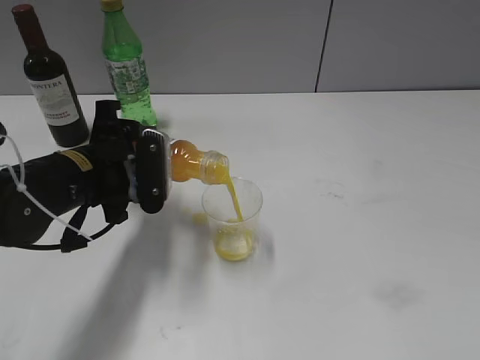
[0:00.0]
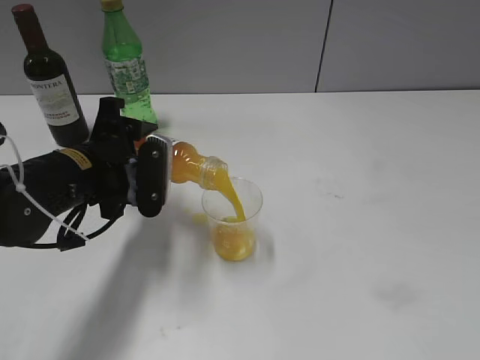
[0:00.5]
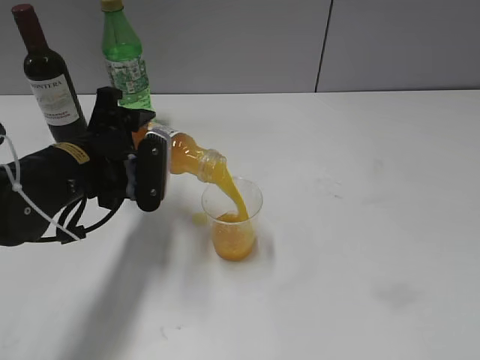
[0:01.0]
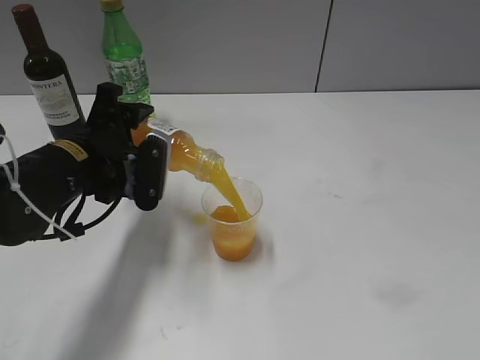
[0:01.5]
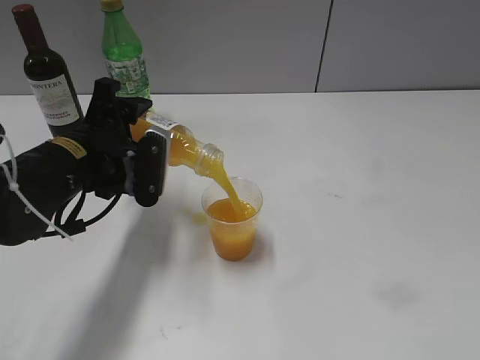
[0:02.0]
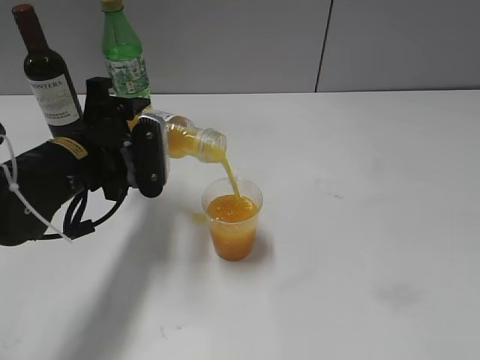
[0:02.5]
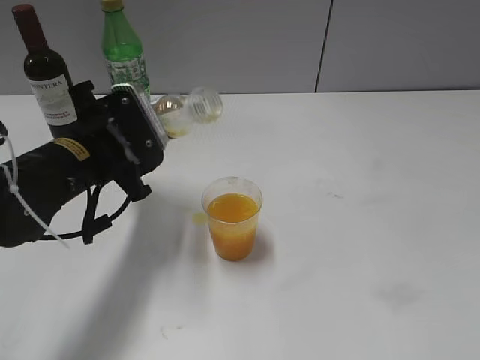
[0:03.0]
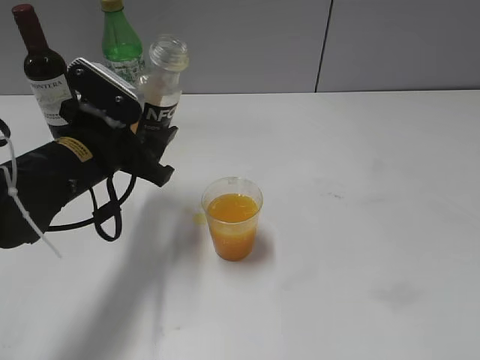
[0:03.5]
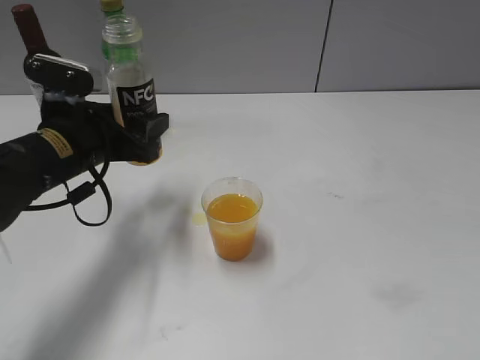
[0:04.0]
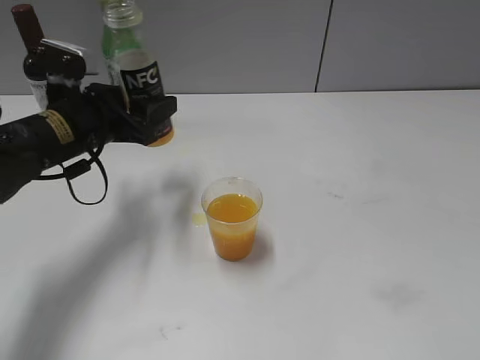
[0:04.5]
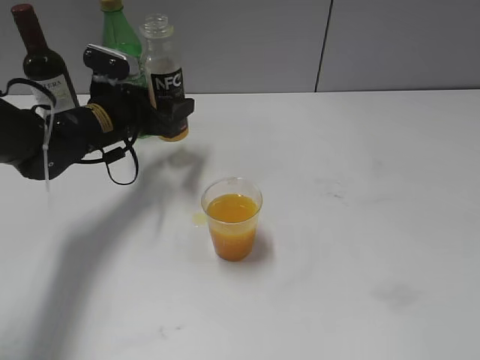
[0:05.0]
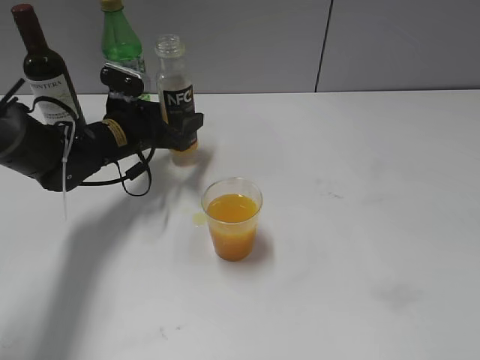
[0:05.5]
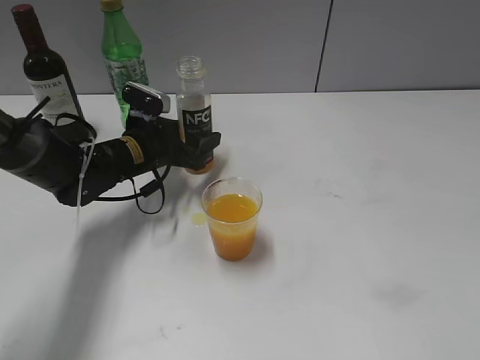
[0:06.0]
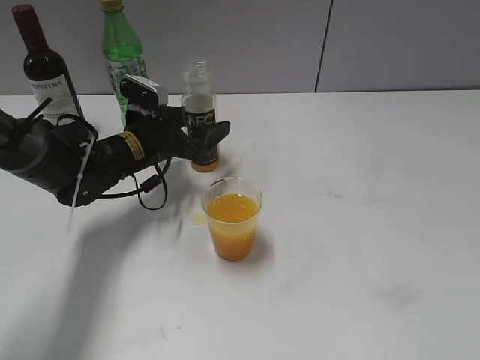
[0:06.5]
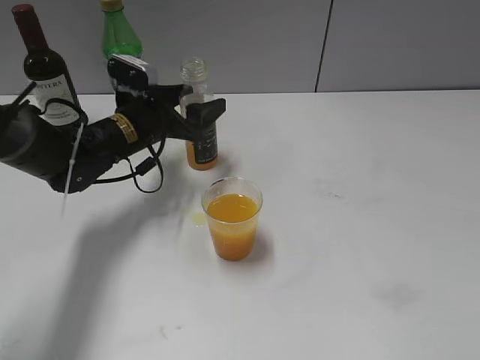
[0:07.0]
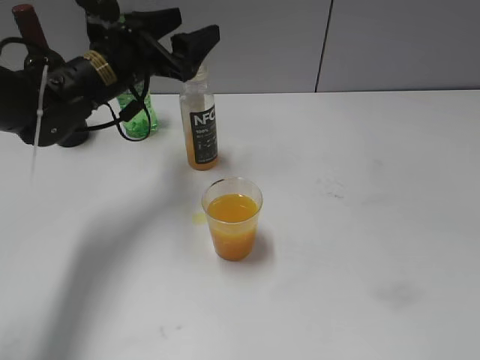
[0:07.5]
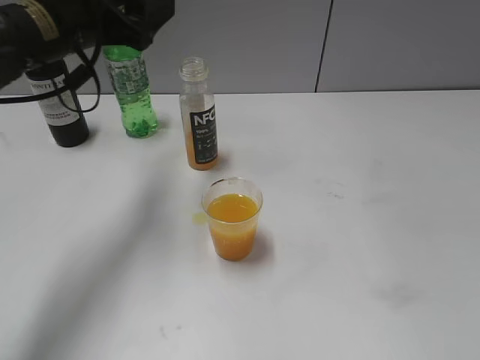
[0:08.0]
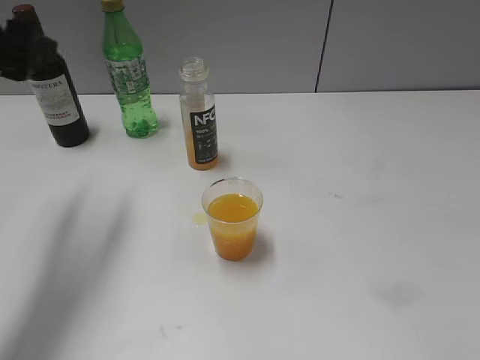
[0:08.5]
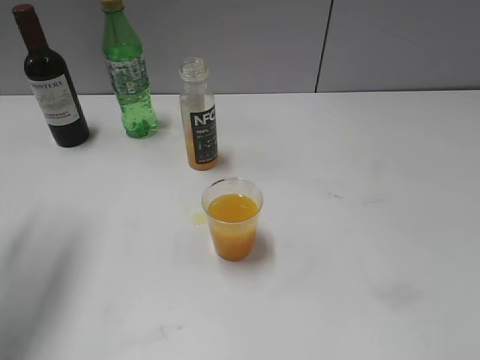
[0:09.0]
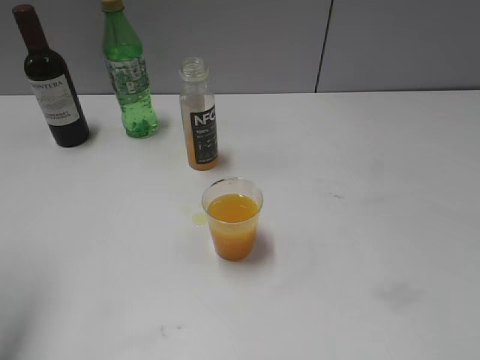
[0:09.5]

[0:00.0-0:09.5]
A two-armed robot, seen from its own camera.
Step, 0.0 to 3.0 s: Pour the orange juice from bottle to cup with left gripper.
Step, 3.5 to 7.0 s: Place the orange juice bottle on the table with left gripper.
0.0 to 2.0 s: The grippers move only a little.
4.0 to 5.5 s: The left gripper heads forward and downward, covering roughly 15 cm.
5.5 to 7.5 s: The left gripper is displaced upward by about 10 cm, and opens its fingers.
7.5 to 9.5 s: The left gripper shifts approximately 30 cm backward, to the left and upward.

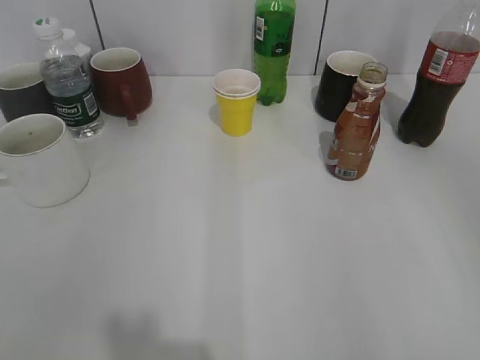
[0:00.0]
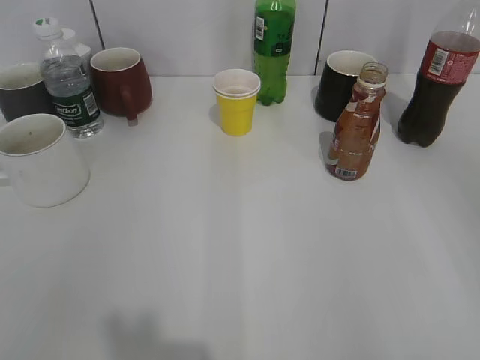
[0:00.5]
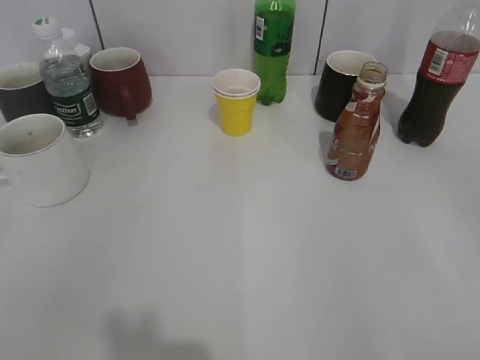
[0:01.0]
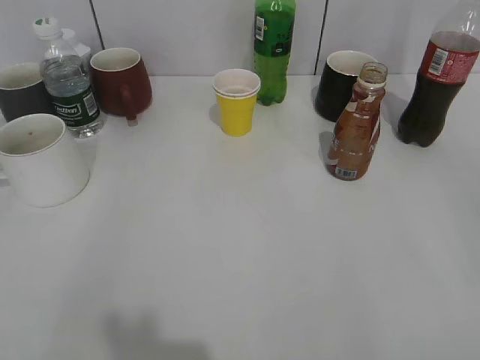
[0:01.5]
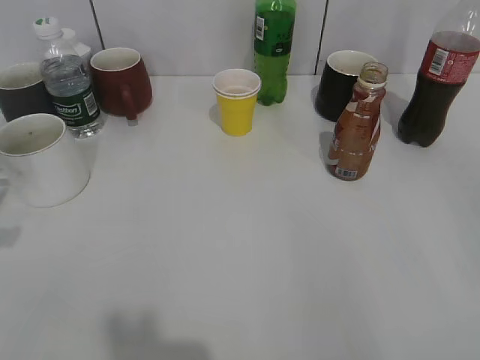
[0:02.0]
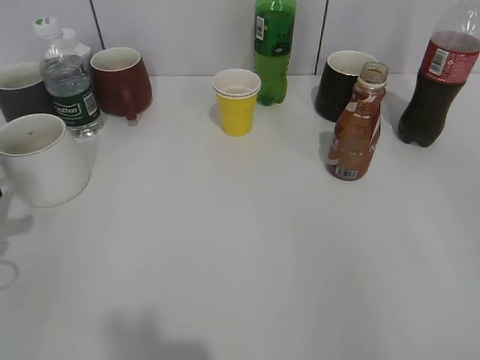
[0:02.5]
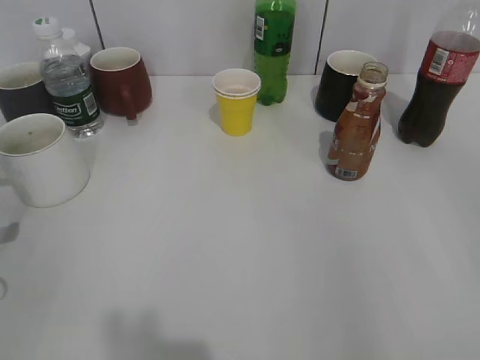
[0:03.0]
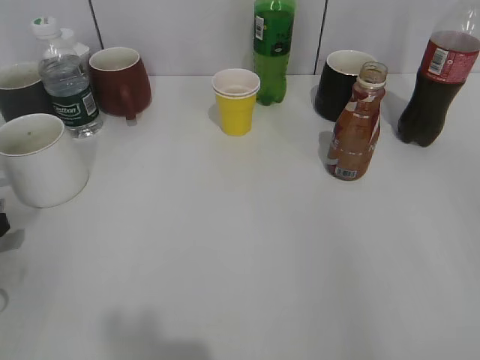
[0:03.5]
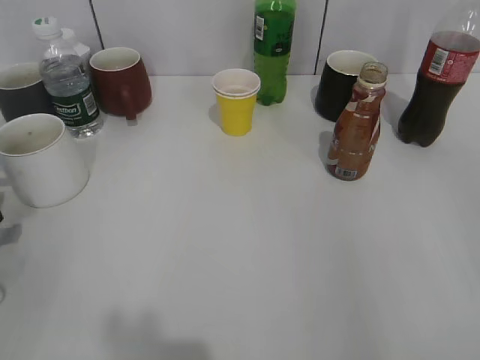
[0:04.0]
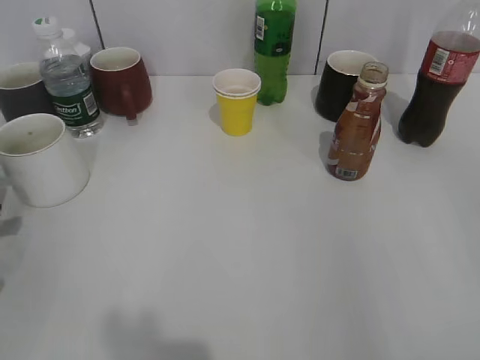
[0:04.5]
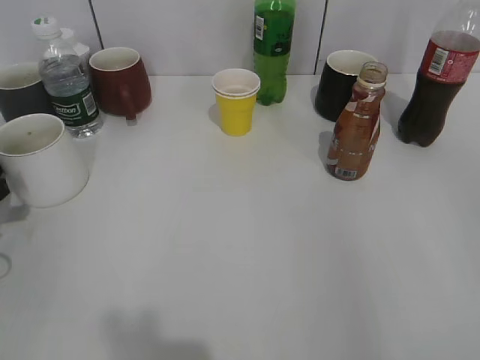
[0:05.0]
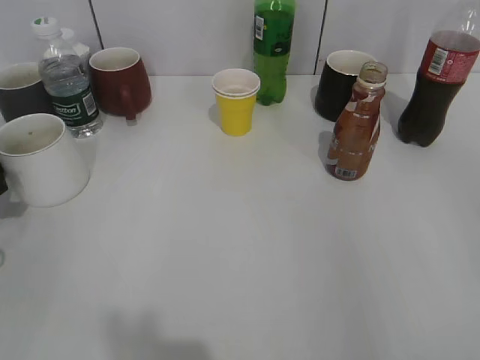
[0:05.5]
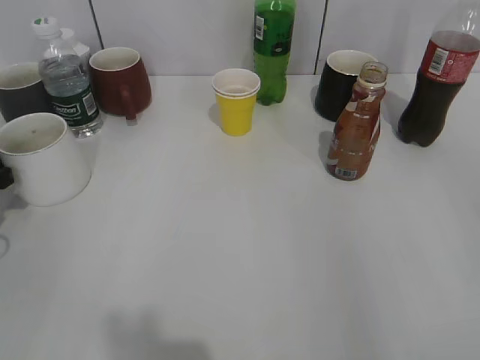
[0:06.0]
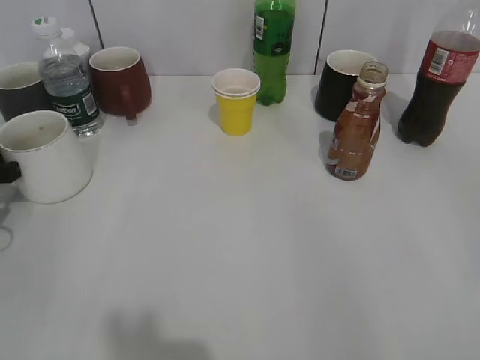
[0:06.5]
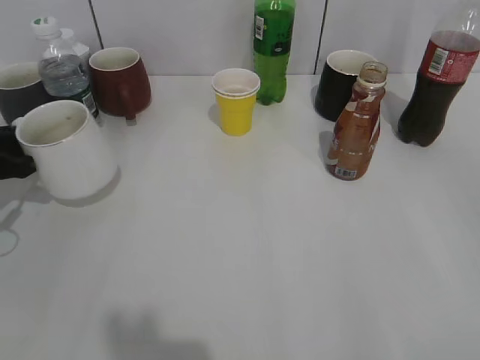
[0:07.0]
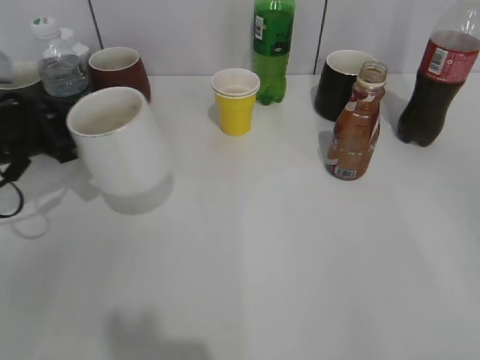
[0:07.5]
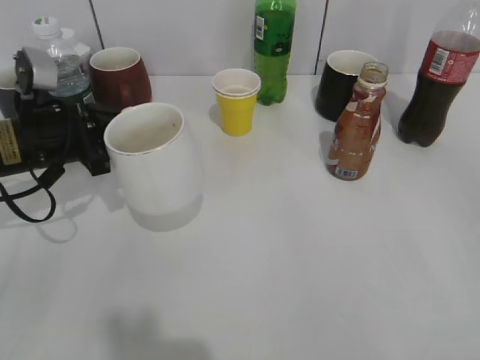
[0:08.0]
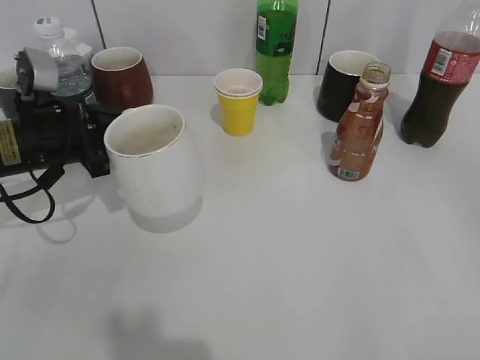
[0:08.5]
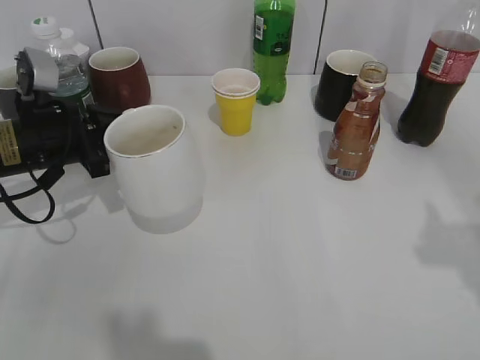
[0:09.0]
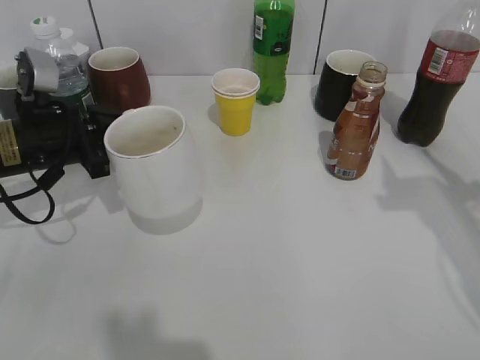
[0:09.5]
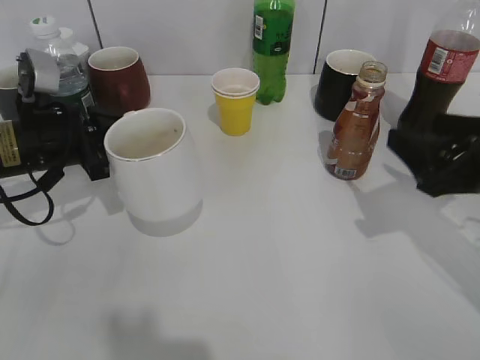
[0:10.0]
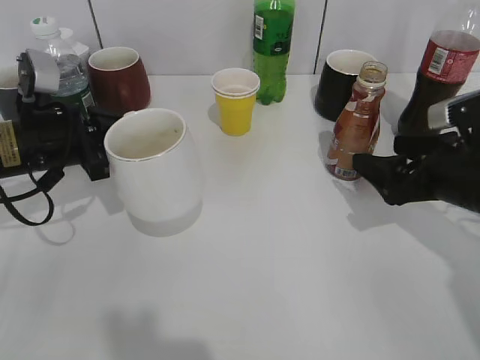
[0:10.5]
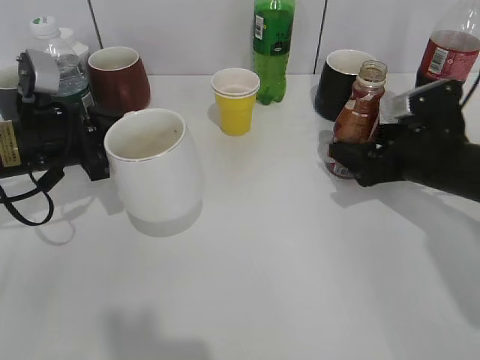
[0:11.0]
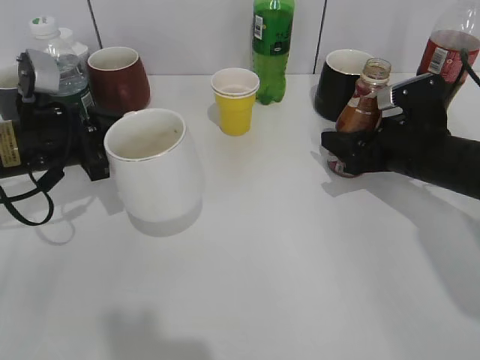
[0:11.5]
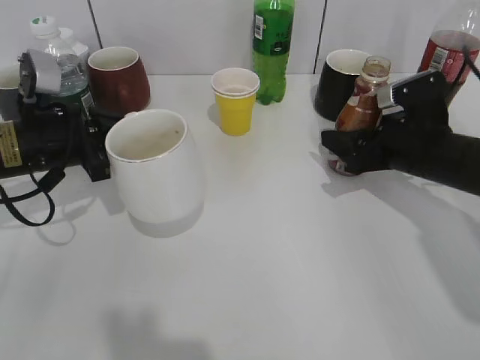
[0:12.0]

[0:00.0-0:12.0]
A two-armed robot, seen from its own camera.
Step, 7.0 to 8.5 s: Lift the white cup with left gripper.
Step, 9.0 to 11.5 s: Grasp the bottle with coffee with right gripper.
2.0 to 4.0 s: The left gripper travels downward by roughly 15 cm, and opens up.
4.0 to 6.0 s: The left gripper moves forward, about 5 cm.
6.0 to 8.0 s: The left gripper is displaced to the right by some 10 cm, and closes its fingers.
8.0 to 10.0 s: The right gripper goes approximately 25 cm forward.
10.0 to 12.0 s: The right gripper moves forward and downward, roughly 10 cm, and opens and closes again.

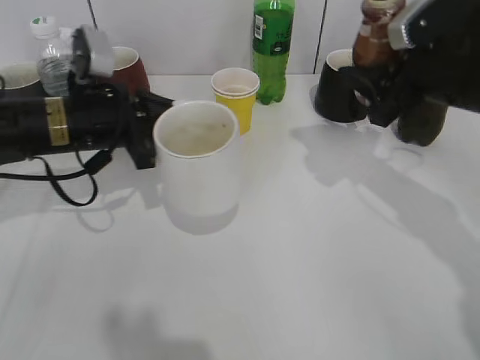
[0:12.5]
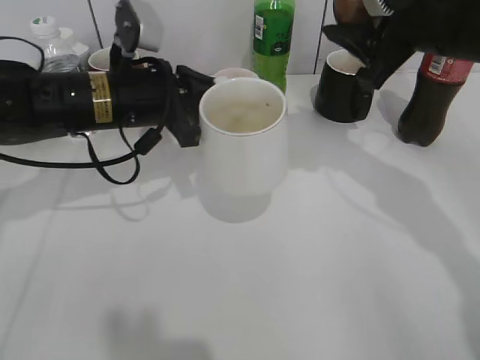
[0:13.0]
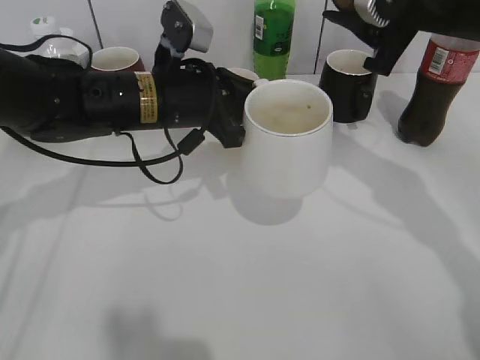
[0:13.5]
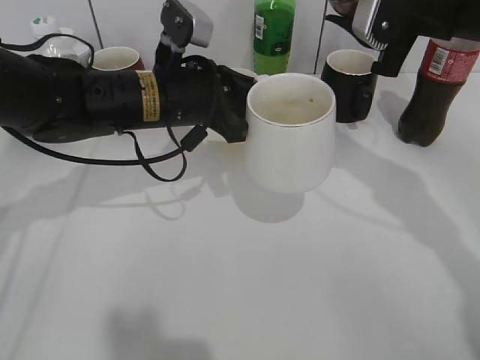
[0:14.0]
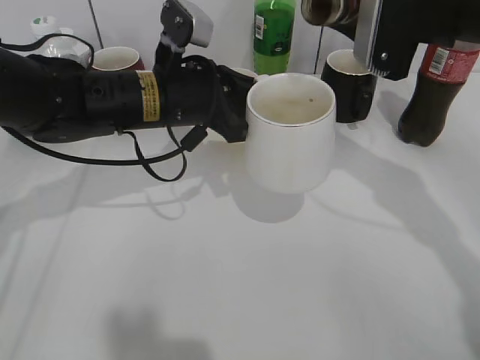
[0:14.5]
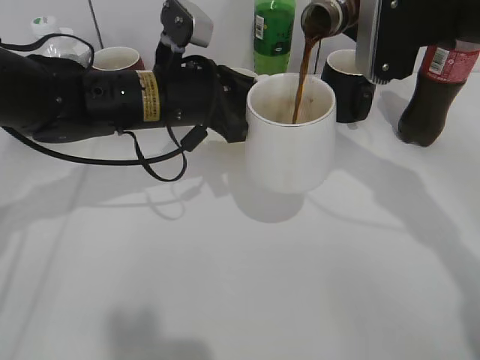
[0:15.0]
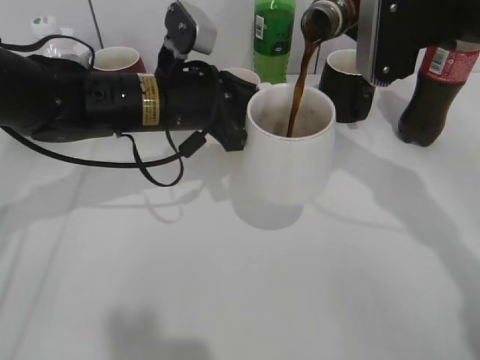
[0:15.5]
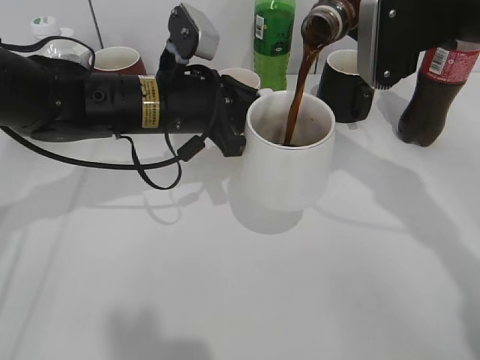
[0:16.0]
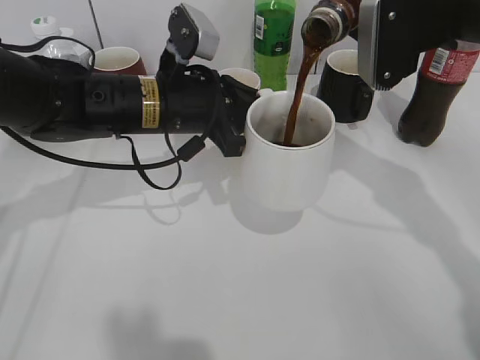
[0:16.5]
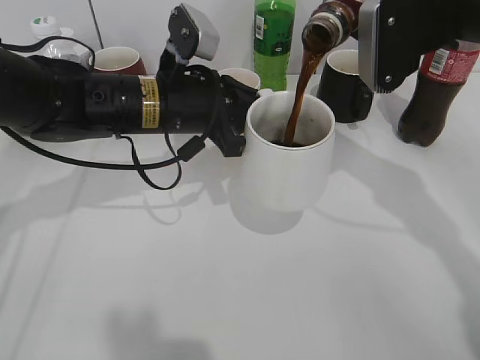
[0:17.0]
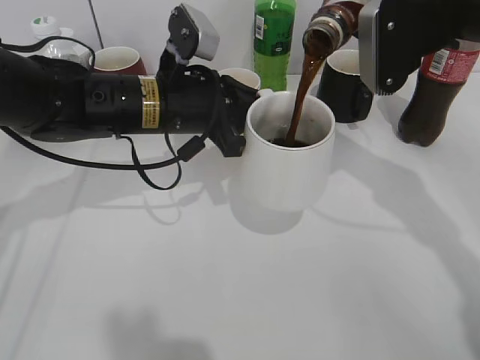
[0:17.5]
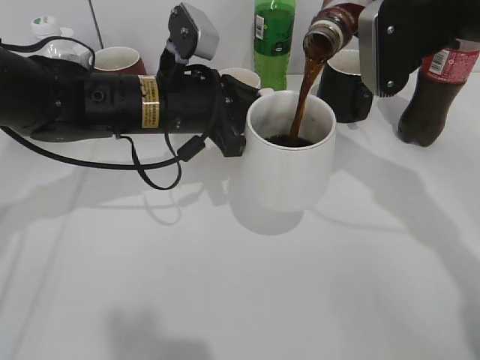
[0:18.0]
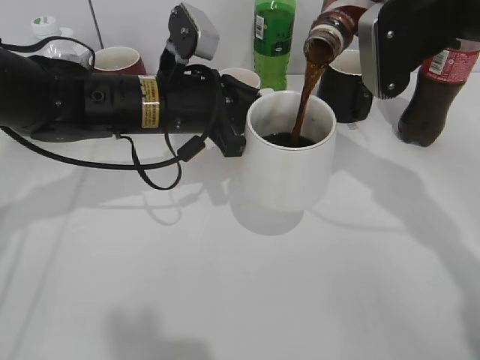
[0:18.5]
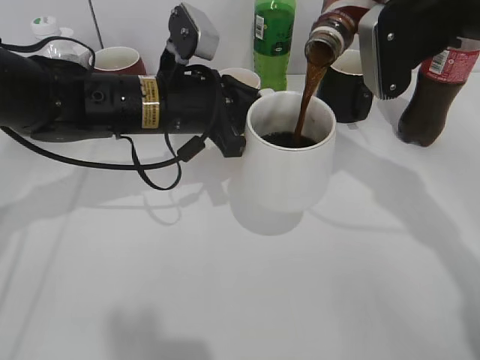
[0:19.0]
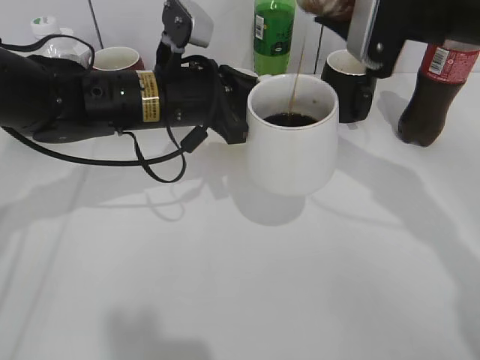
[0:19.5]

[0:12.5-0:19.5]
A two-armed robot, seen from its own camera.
12.5 to 14.5 s: The right gripper goes about 5 cm upward, while the left gripper shifts roughly 10 cm to the right.
14.5 to 17.5 s: The grippers move only a little.
17.5 to 19.5 s: The grippers make only small movements.
